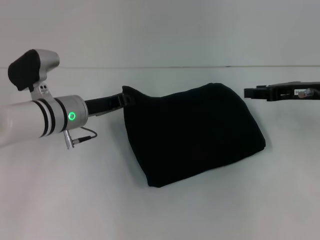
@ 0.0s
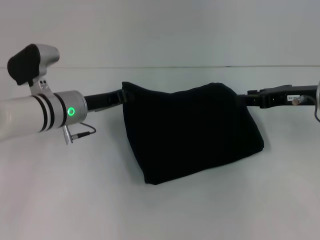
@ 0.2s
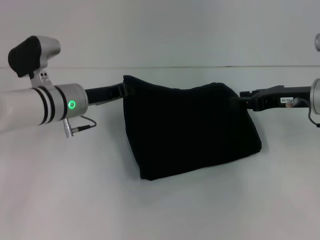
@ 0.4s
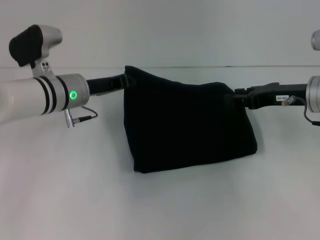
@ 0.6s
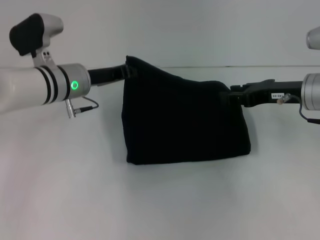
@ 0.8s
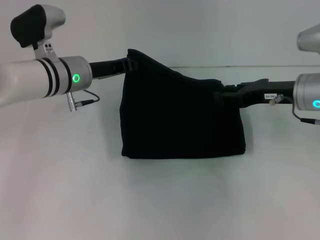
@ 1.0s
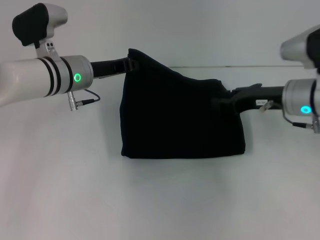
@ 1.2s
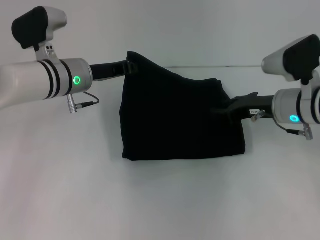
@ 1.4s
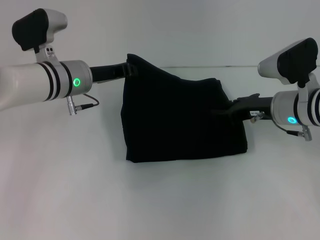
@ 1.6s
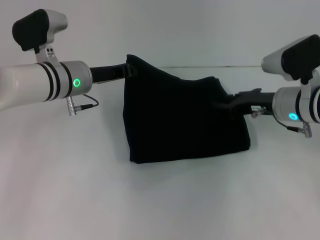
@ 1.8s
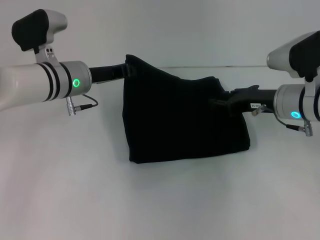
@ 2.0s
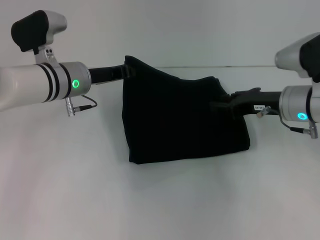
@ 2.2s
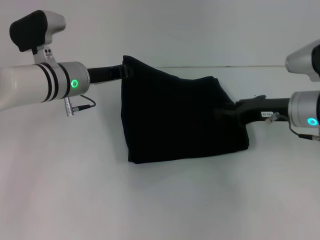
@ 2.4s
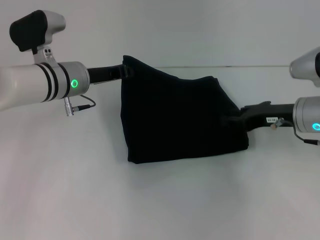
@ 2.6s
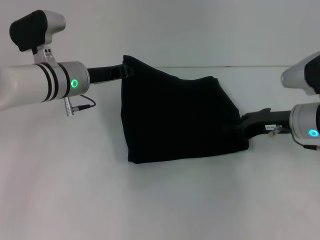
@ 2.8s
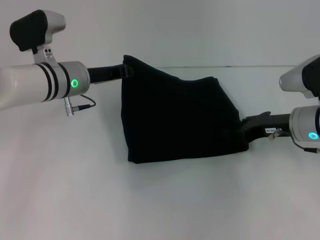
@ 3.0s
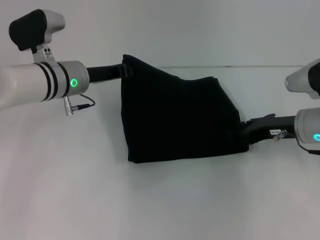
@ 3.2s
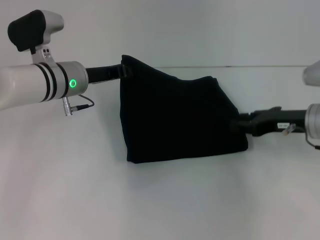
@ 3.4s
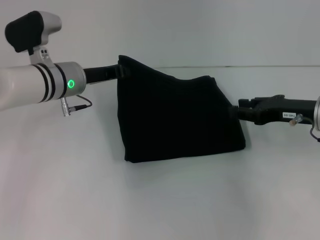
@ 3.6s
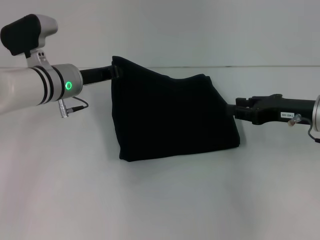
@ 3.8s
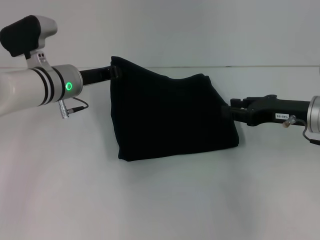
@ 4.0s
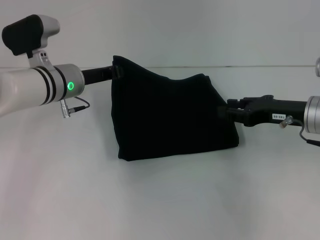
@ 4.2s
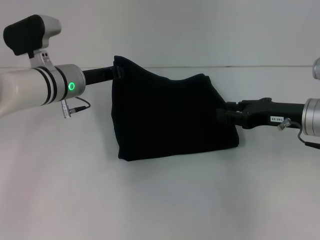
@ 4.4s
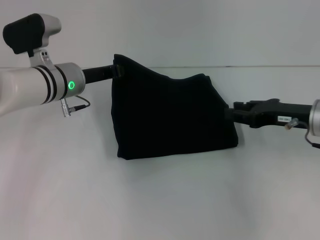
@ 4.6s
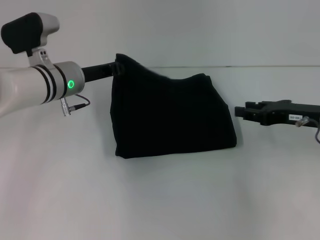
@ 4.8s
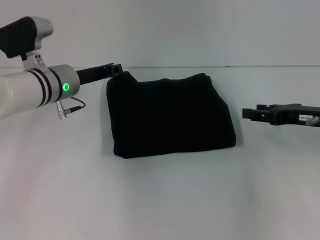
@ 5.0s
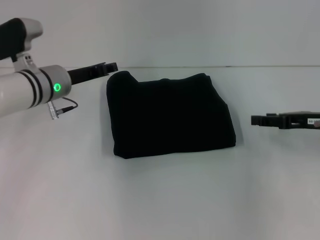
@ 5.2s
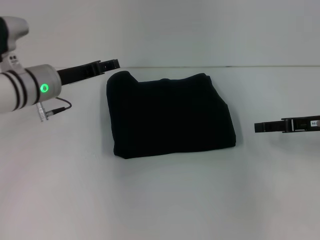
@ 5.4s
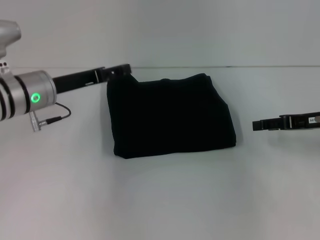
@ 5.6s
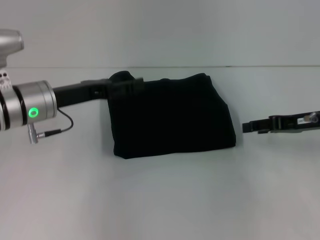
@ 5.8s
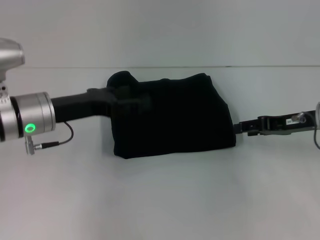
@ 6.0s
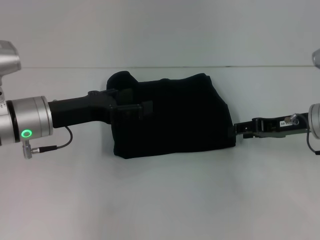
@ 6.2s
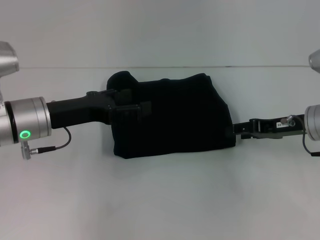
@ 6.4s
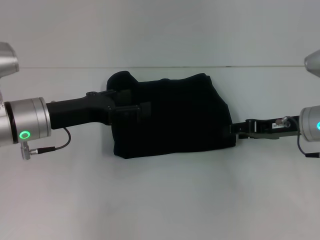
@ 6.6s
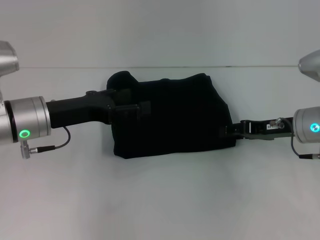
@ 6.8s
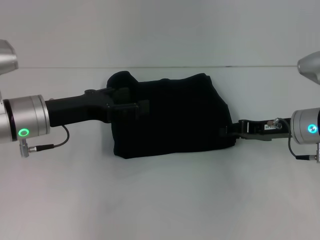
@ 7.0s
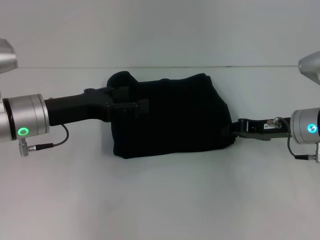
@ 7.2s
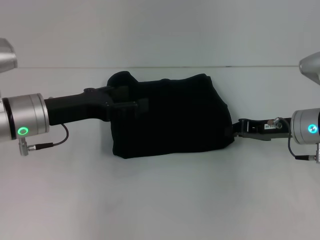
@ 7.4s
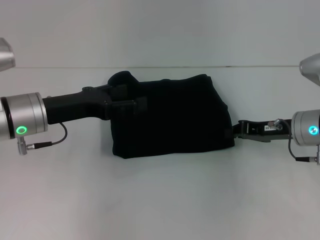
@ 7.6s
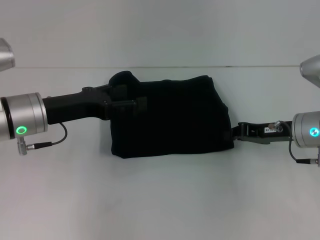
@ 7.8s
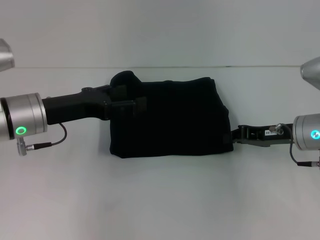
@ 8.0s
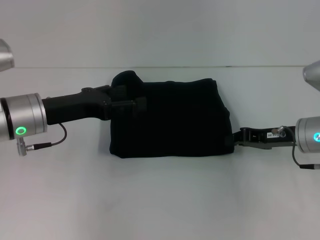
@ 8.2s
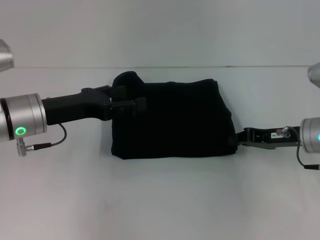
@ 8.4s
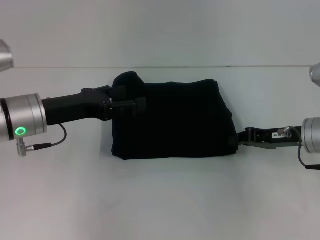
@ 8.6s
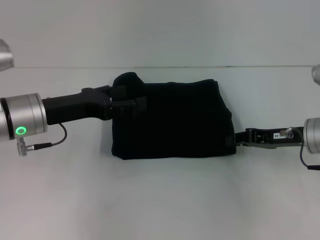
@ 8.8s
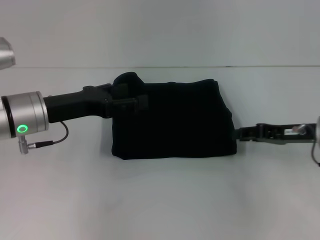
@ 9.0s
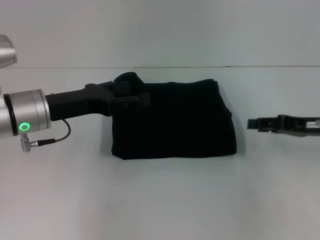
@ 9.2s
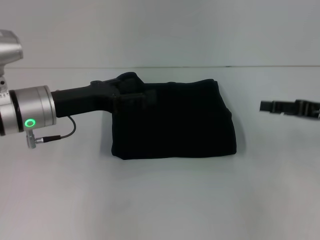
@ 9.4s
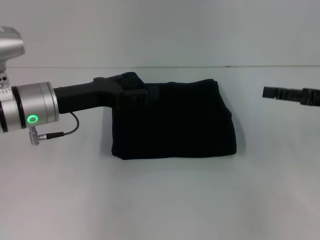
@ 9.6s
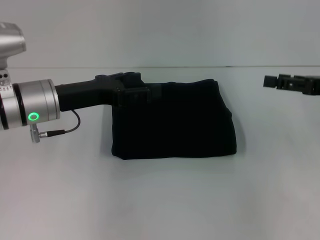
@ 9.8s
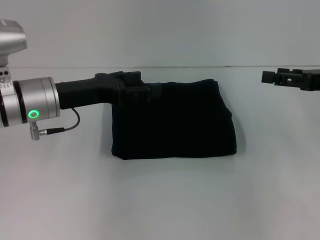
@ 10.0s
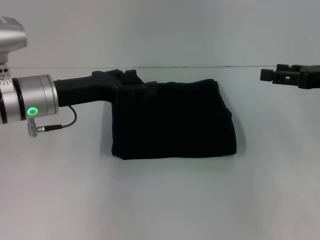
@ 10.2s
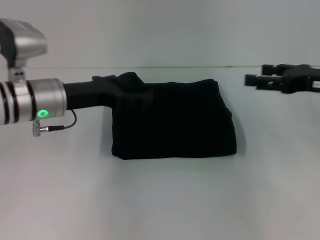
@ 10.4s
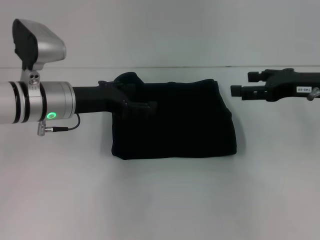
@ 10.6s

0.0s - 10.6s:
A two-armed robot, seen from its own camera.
0.0s - 1.6s: The right gripper shifts approximately 5 cm to the left; the left gripper shifts by roughly 5 cm.
1.6s - 3.0s: There are only small adjustments of the grippers.
3.0s - 4.6s: The grippers move only a little.
4.6s - 6.0s: The left gripper heads backward, covering some 10 cm, and opens its fingers.
6.0s - 7.6s: The right gripper closes its fingers.
7.6s - 9.0s: The grippers make only small movements.
9.0s - 10.6s: The right gripper heads upward, covering some 5 cm, and opens up.

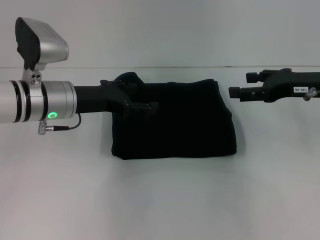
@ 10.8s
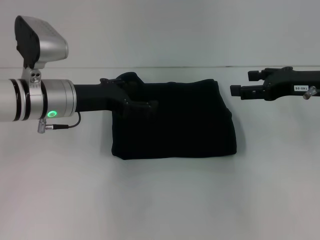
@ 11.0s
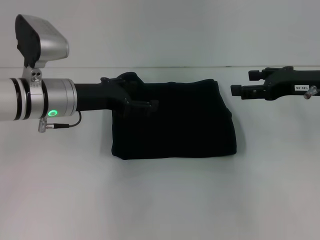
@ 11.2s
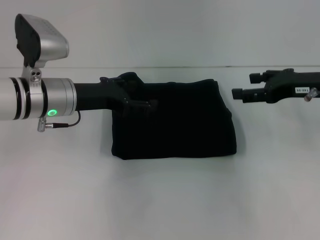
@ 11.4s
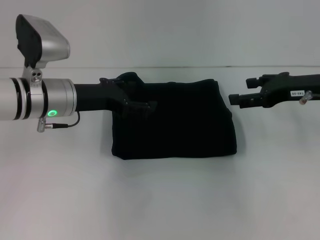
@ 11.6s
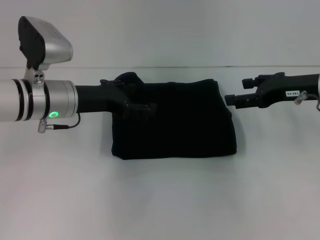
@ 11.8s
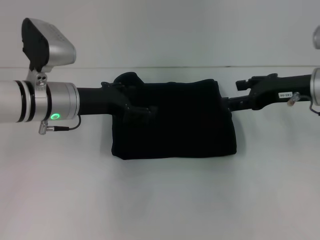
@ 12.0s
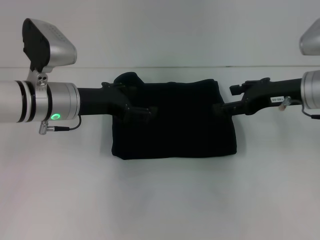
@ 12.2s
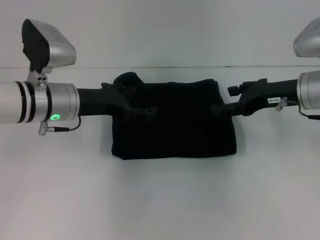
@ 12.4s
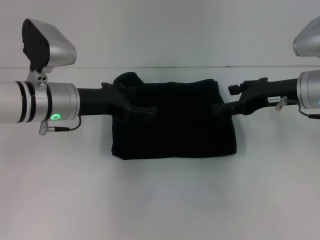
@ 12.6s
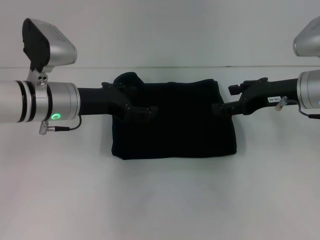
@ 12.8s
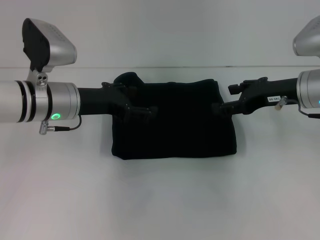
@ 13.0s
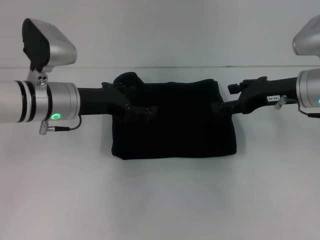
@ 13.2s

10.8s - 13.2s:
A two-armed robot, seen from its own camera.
10.8s - 13.2s: There are only small adjustments of the grippers.
